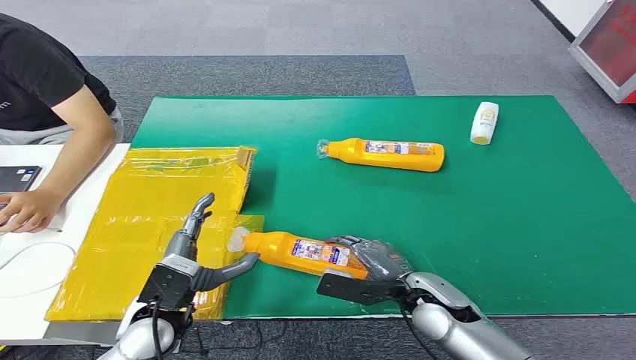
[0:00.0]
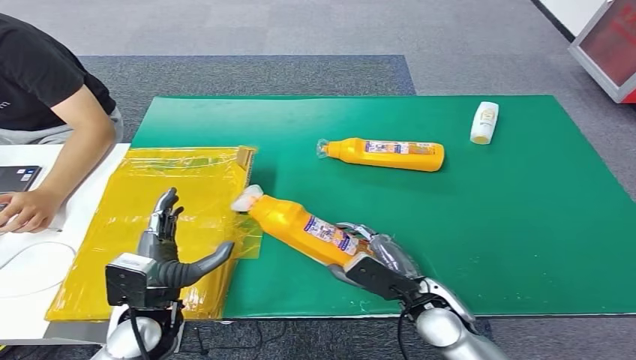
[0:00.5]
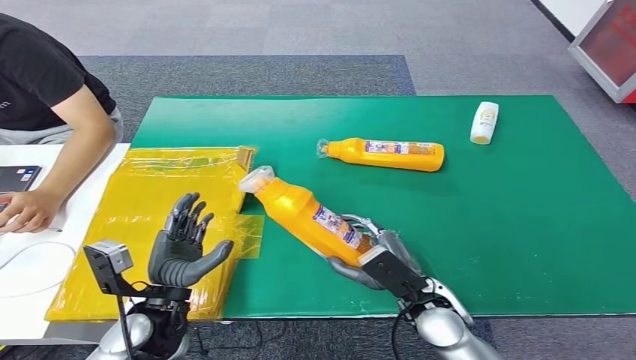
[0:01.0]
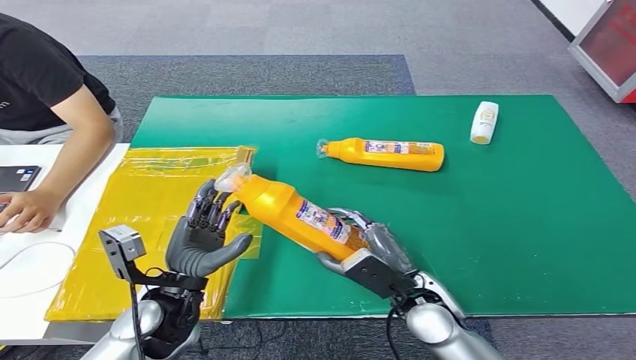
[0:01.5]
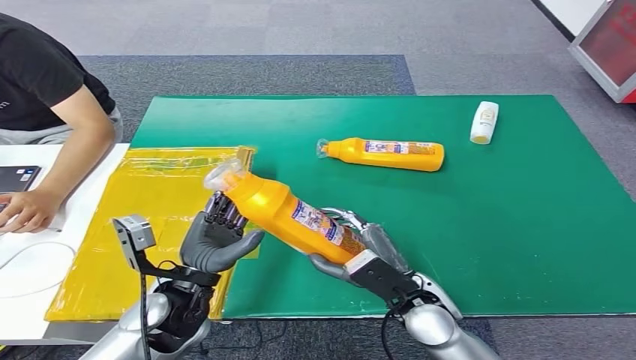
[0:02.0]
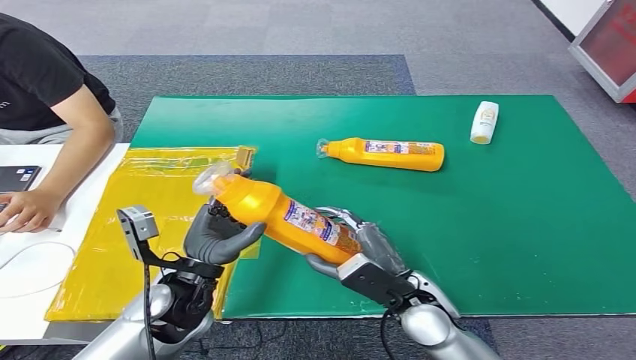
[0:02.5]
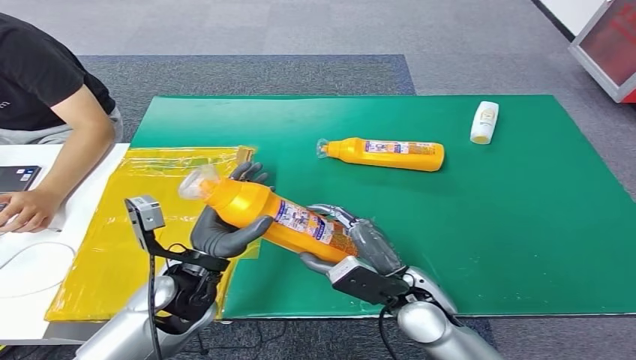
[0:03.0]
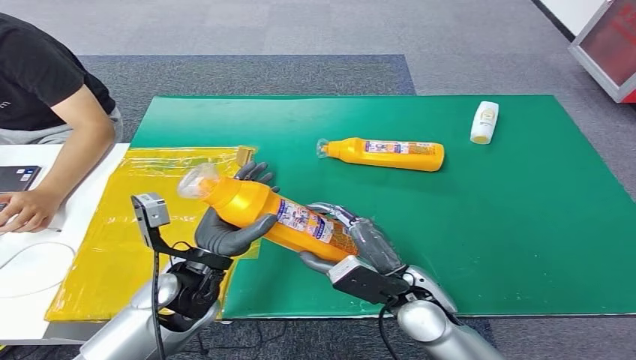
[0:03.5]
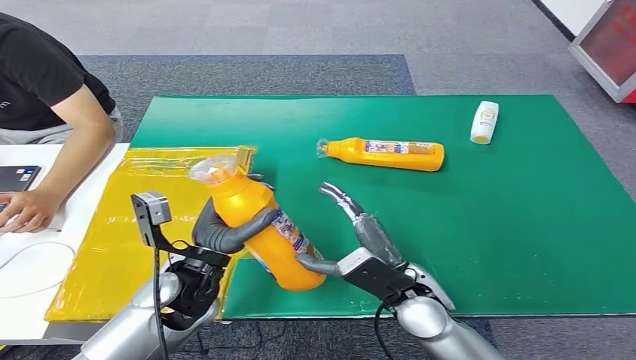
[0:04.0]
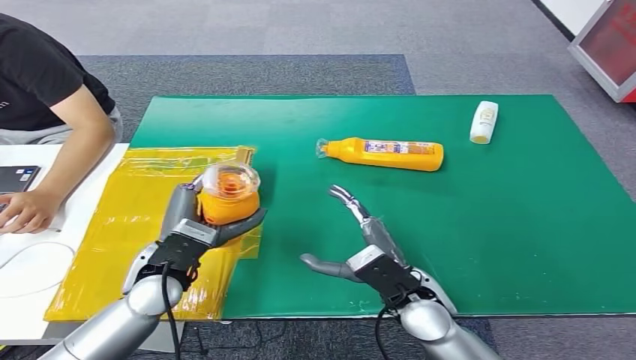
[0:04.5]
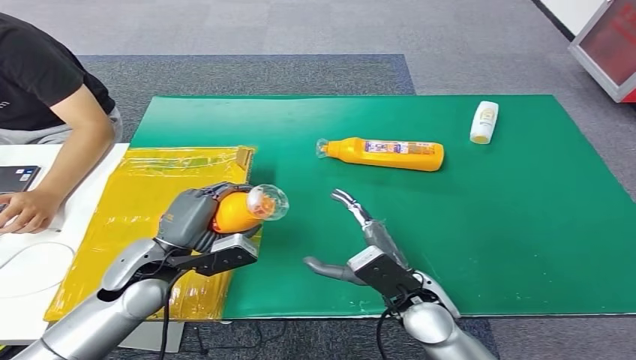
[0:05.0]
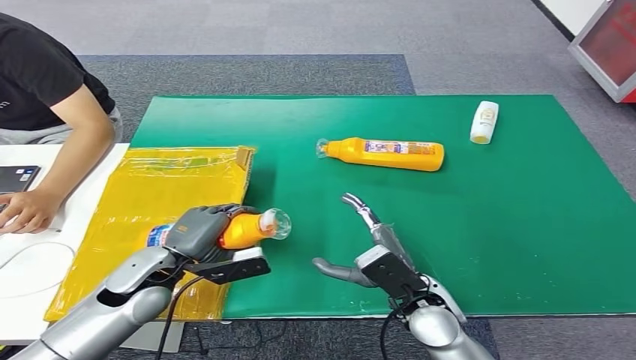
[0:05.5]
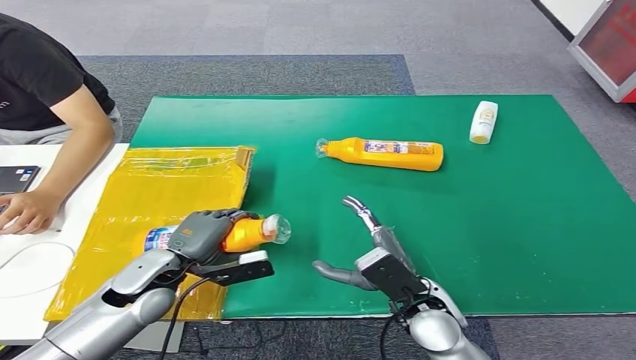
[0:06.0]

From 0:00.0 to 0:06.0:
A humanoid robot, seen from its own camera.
Step, from 0:00.0 to 0:01.5: Pick up the bottle from the table.
Step, from 0:02.0 to 0:06.0: Turn the bottle to the front side.
From 0:02.0 to 0:04.0: There are only small adjustments of the hands.
From 0:04.0 to 0:06.0: The left hand goes some 10 cm to the left and downward.
